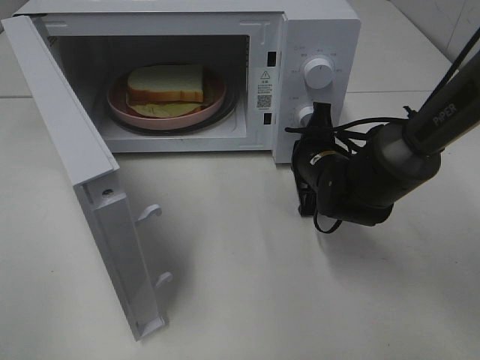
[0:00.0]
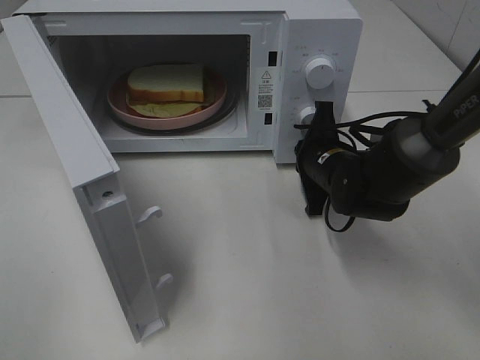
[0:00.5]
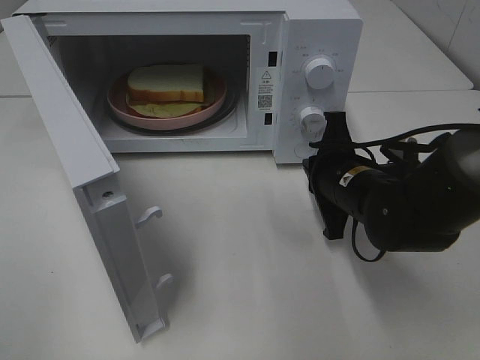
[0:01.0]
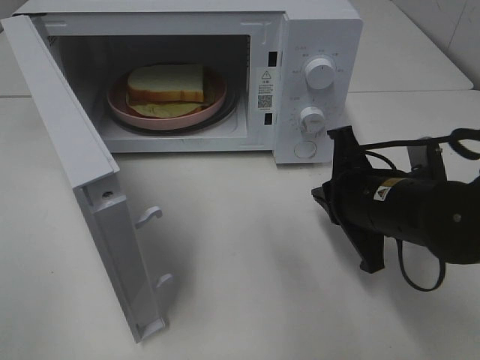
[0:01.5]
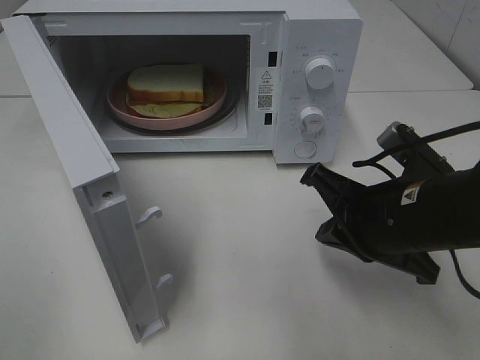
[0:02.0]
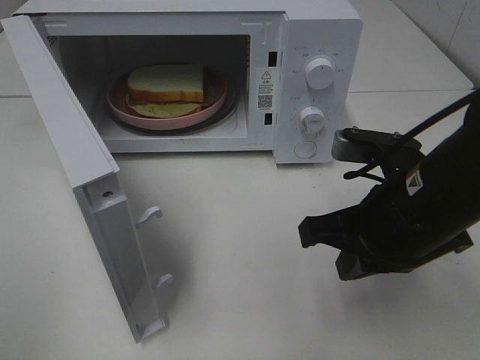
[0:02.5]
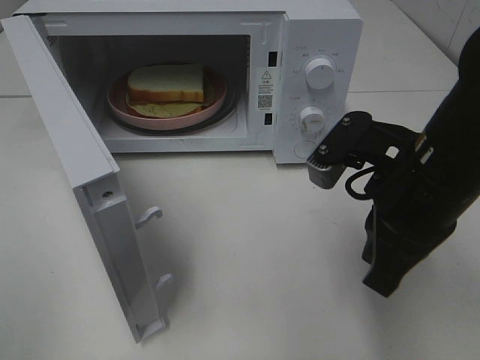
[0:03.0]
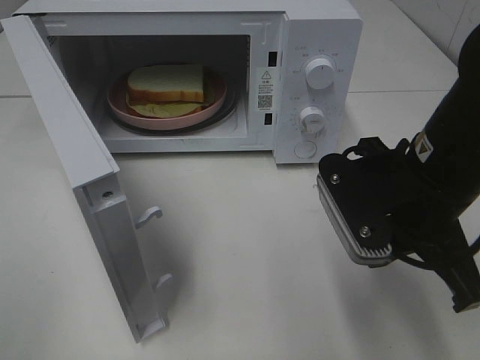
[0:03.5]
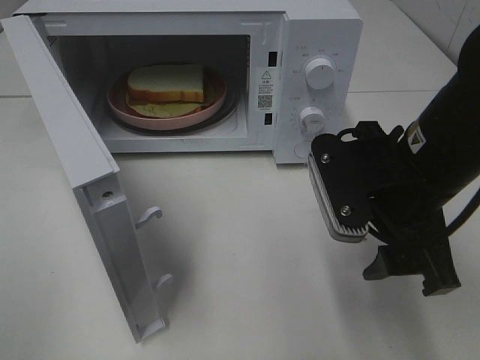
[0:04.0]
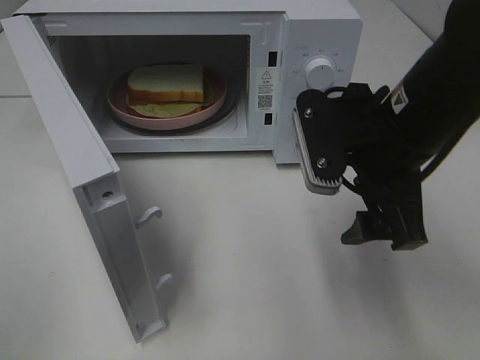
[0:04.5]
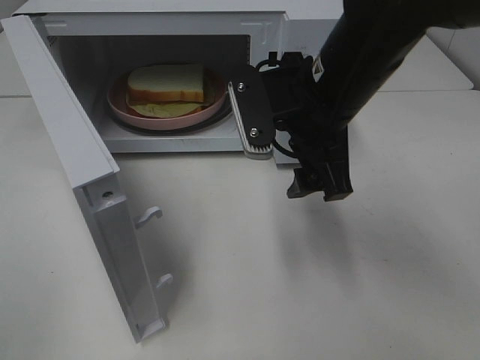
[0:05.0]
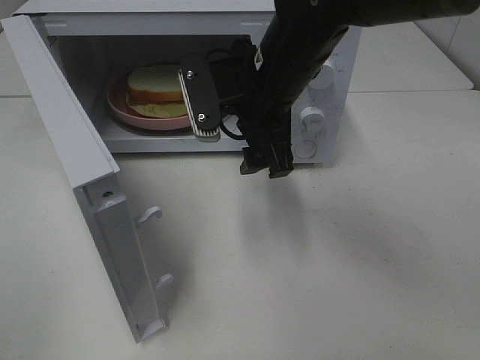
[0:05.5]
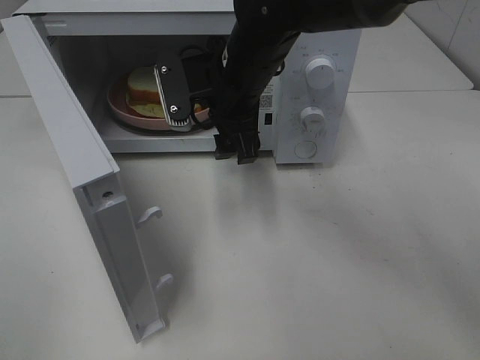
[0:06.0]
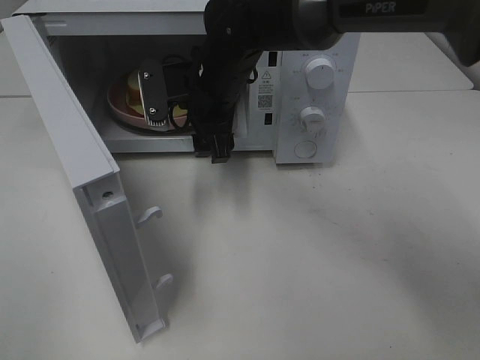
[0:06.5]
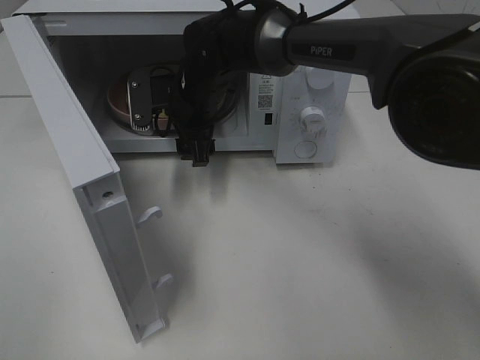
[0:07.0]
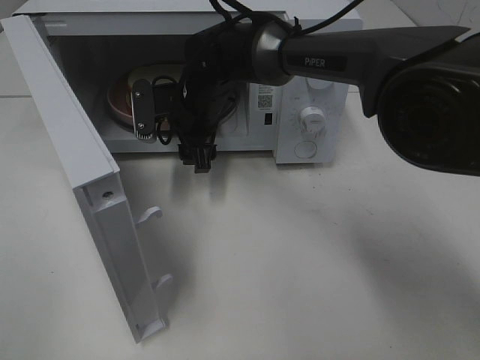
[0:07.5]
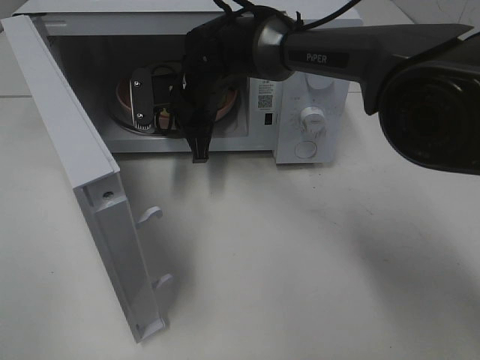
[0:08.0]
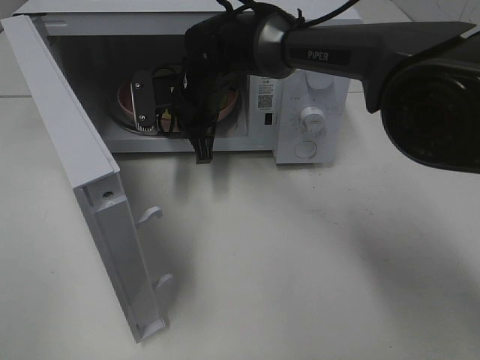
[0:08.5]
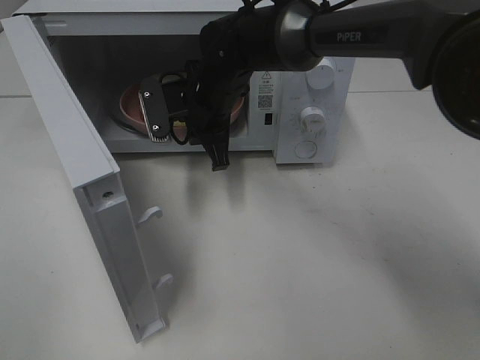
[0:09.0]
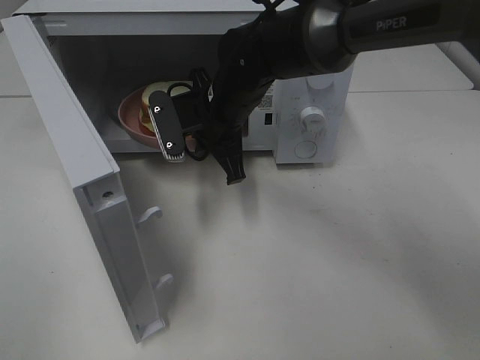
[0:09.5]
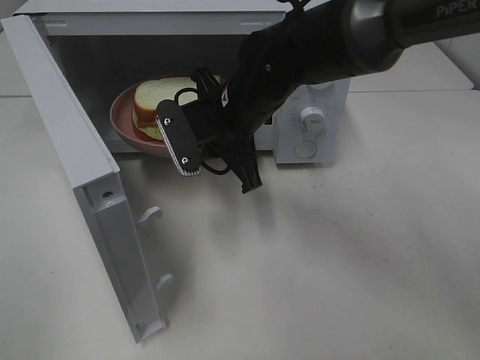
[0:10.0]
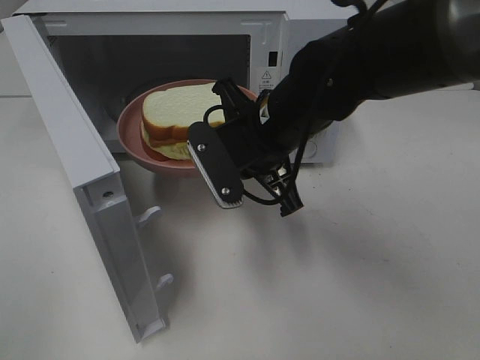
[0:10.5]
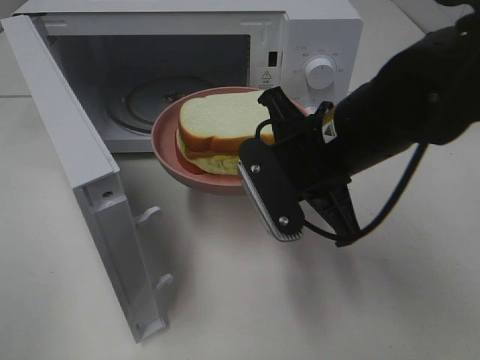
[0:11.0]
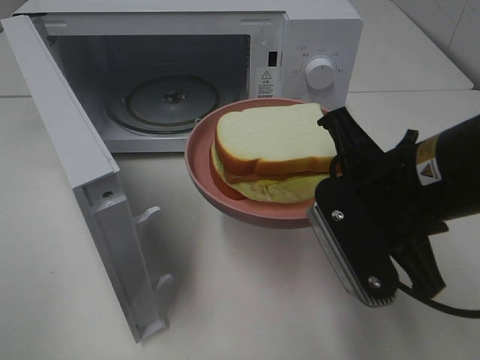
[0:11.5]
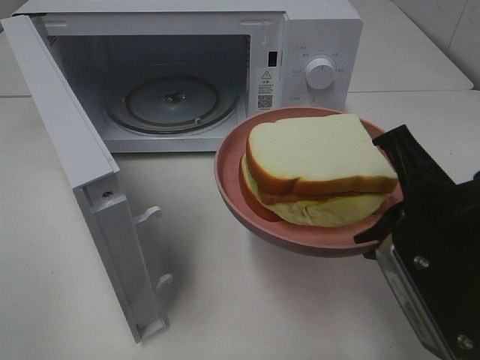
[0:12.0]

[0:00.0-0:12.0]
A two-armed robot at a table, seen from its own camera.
Task of the whole recording: Heat Sandwich.
Step, 0:01.5 to 0:08.0: Right hand: grab the plate with the sandwich.
0:00.0 to 0:02.0: The right gripper moves backward and upward, approximately 15 cm.
0:02.0 to 0:04.0: The right gripper moves upward, some 5 cm, and opens its fingers.
0:04.0 to 0:06.0: The right gripper heads forward and to the left, covering some 20 cm.
0:06.0 to 0:08.0: The right gripper is displaced forward, downward and to the left by some 10 cm, and closes.
0:08.0 to 0:10.0: The right gripper travels backward and to the right by some 10 cm.
0:10.0 to 0:12.0: The right gripper moves backward and to the right, approximately 25 cm.

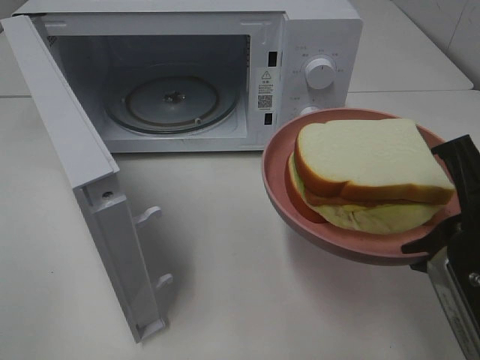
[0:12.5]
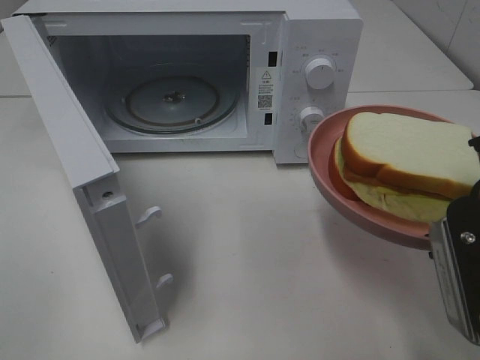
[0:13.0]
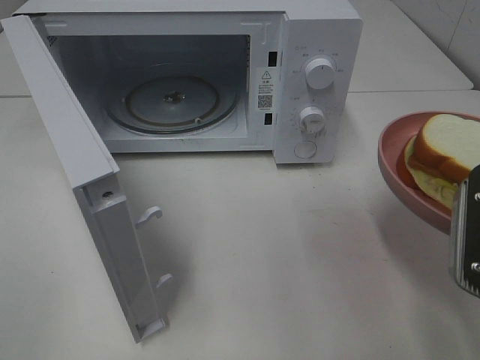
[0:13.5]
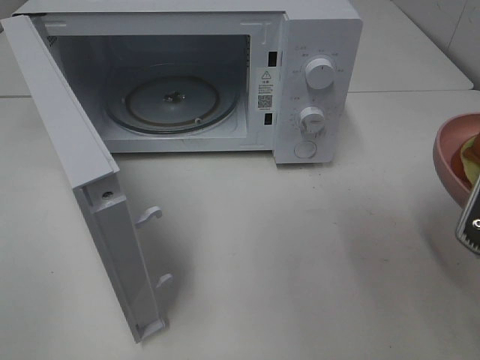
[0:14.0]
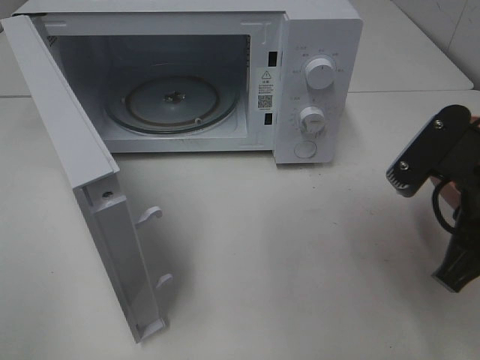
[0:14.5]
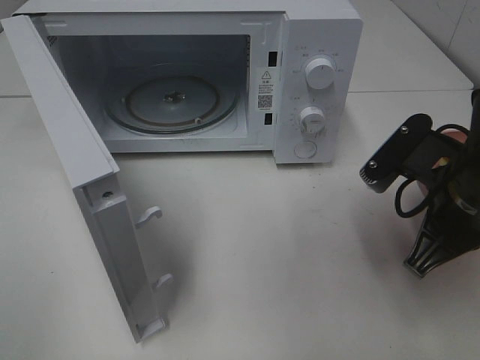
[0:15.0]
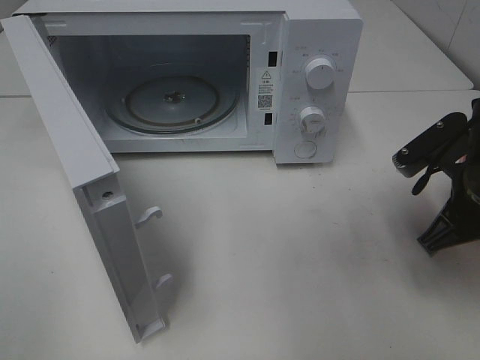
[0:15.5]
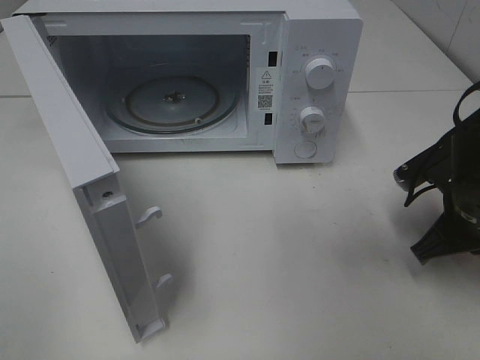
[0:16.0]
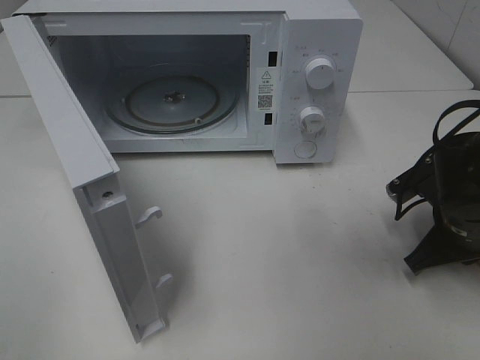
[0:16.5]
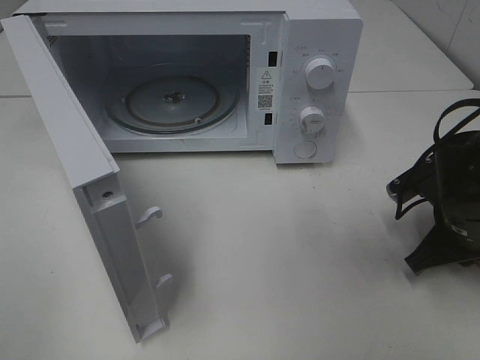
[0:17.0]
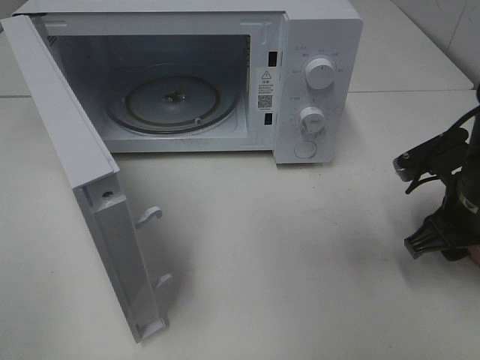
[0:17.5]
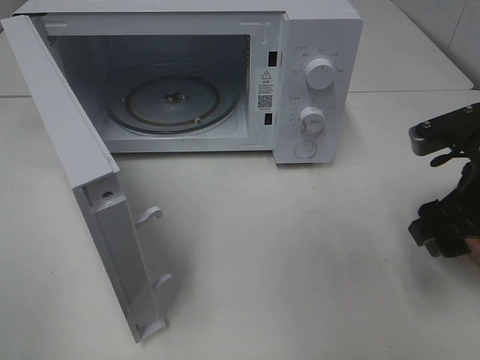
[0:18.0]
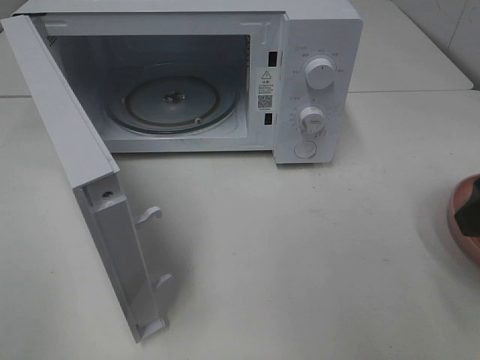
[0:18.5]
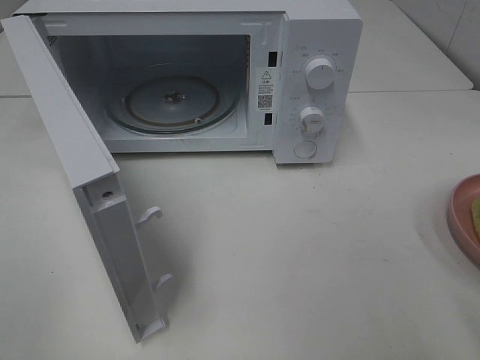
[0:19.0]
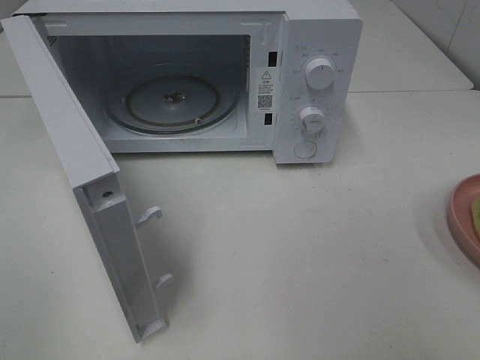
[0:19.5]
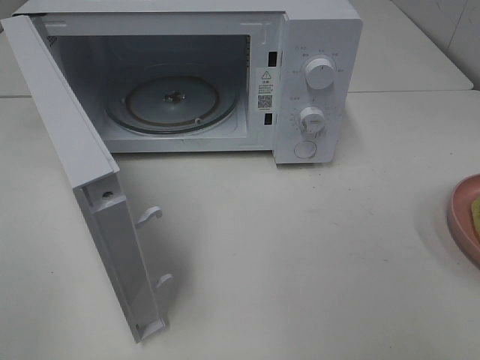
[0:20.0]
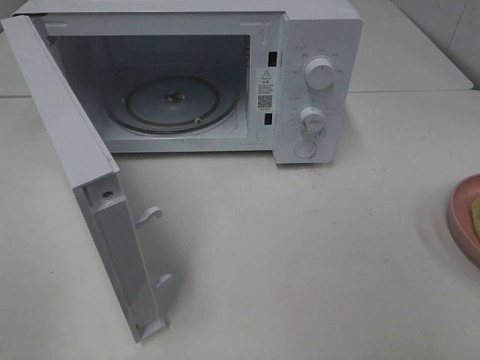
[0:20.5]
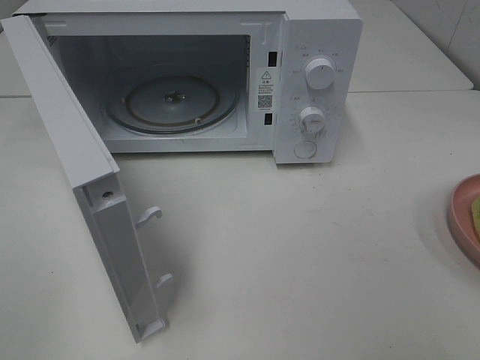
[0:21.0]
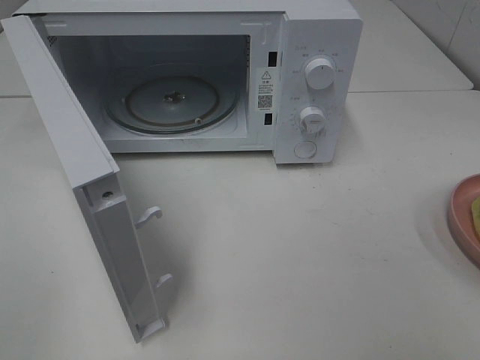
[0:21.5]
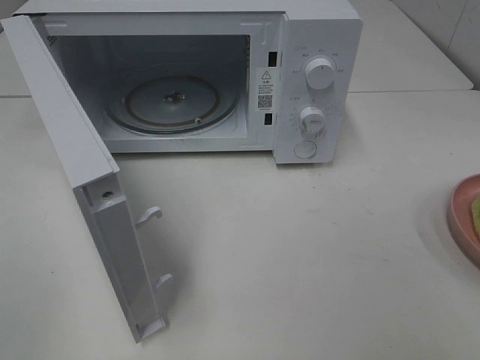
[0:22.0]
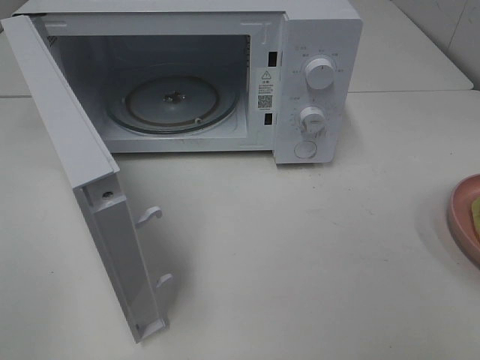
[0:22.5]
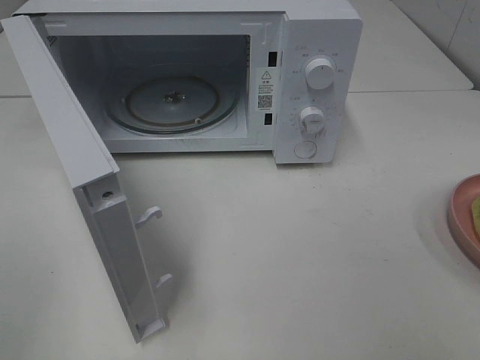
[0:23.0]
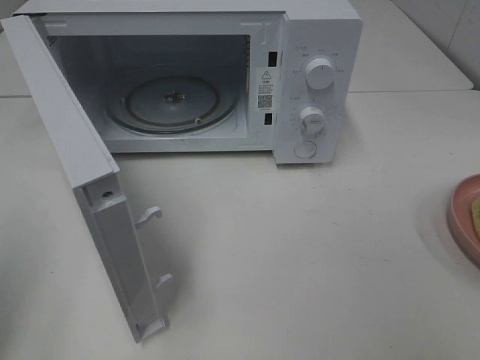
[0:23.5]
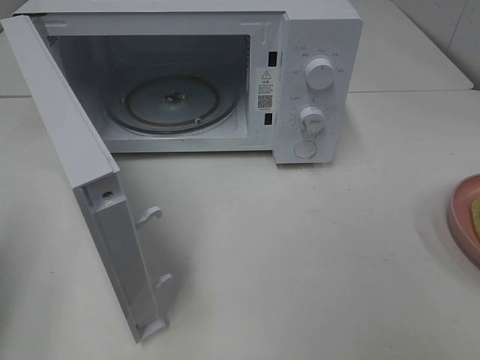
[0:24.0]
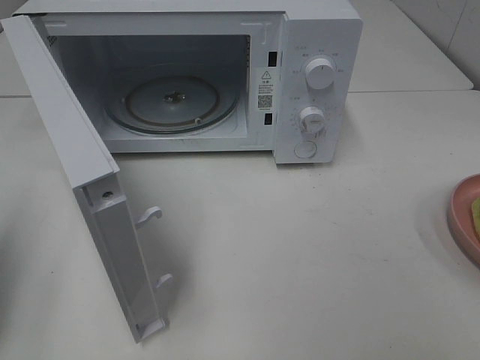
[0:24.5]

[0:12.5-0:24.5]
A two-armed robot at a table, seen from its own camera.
Task of the whole recording: Heat Sandwich.
Step, 0:12.5 to 0:18.5: Right hand: place the plate on the table.
0:12.5 to 0:14.5: The right gripper moves forward, about 5 cm.
0:14.5 to 0:16.5: The right gripper travels downward and forward by some 15 cm.
0:16.5 to 0:18.5: The right gripper is displaced upward and backward by roughly 20 cm, and opens its fingers.
0:18.5 to 0:20.5: The right gripper shifts some 15 cm backward.
0:20.5 to 0:22.5: Neither gripper changes place.
0:22.5 to 0:24.5: The left gripper is displaced forward by about 15 cm, and closes its fingers.

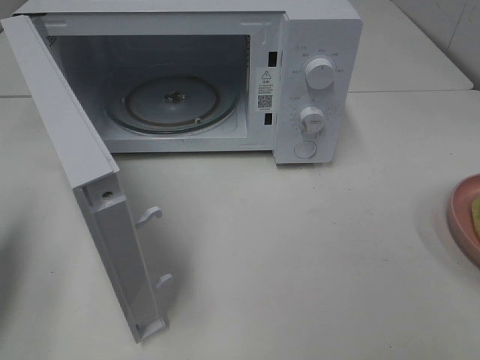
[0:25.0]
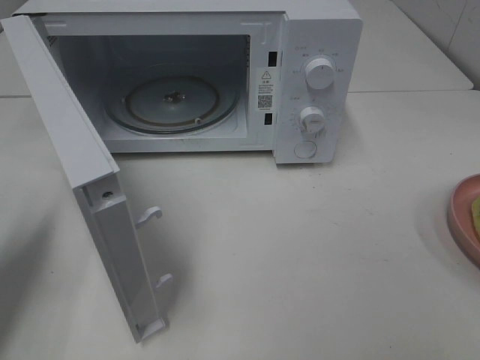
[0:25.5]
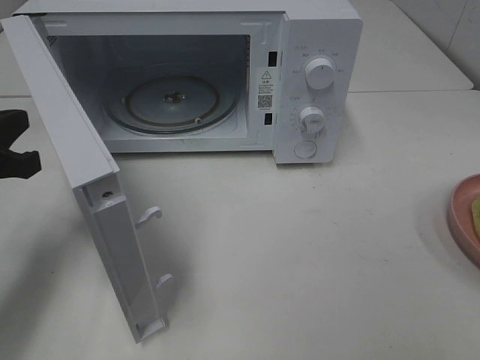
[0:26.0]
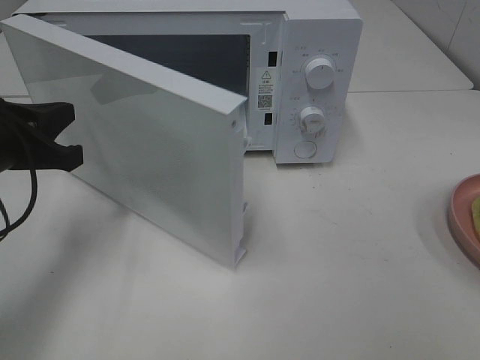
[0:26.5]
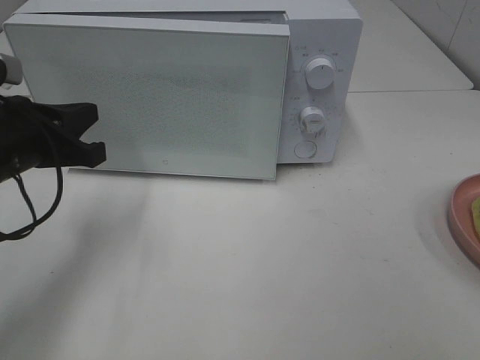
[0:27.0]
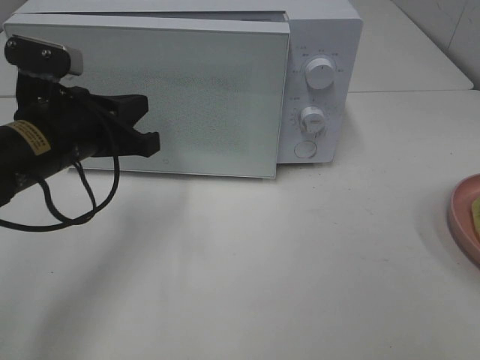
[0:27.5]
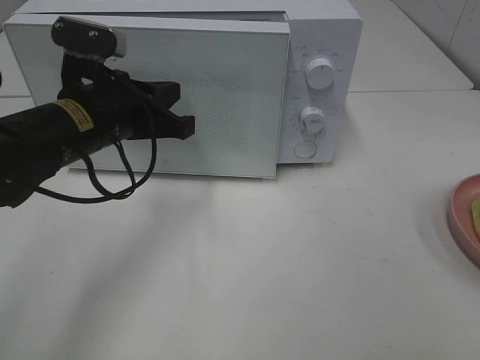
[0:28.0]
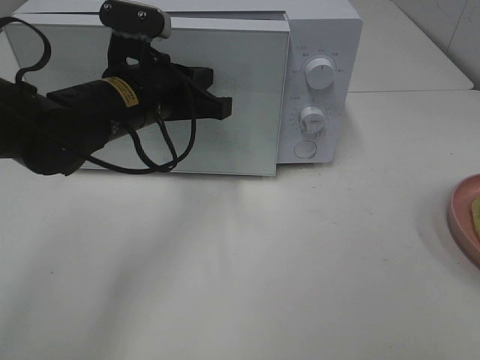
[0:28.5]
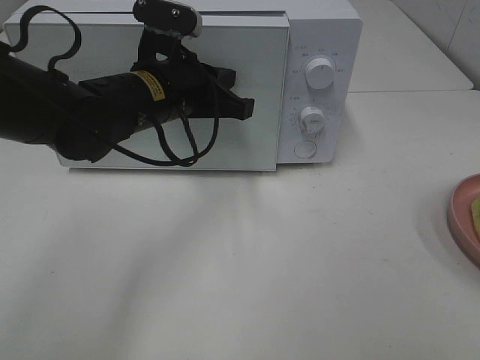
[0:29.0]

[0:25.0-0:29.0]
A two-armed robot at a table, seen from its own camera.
Task of the whole recording: Heat Sandwich.
0:25.0 to 0:27.0: The left gripper shifts some 15 cm to the right and forward.
0:27.0 to 0:29.0: The left gripper shifts roughly 15 cm to the right and forward.
